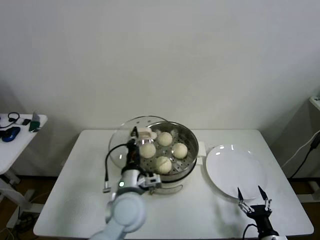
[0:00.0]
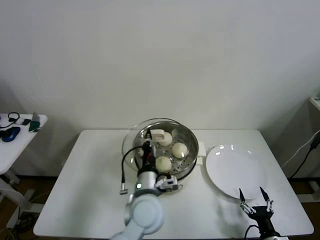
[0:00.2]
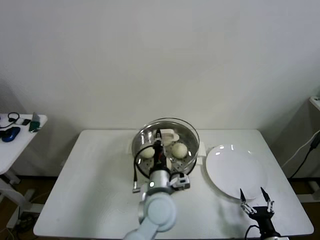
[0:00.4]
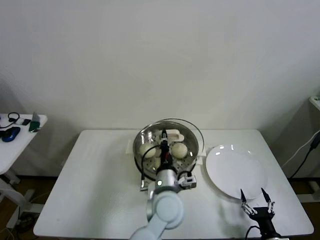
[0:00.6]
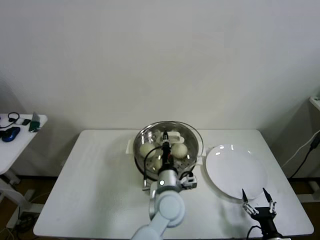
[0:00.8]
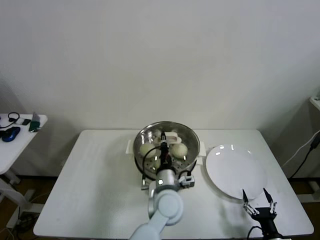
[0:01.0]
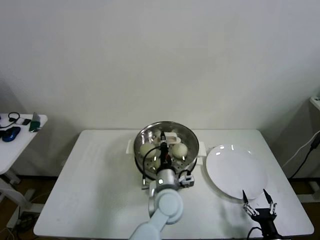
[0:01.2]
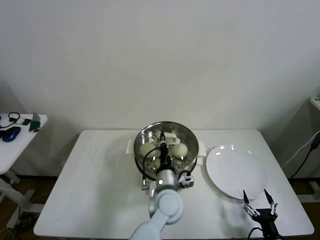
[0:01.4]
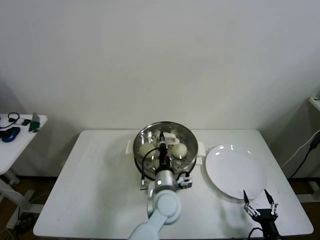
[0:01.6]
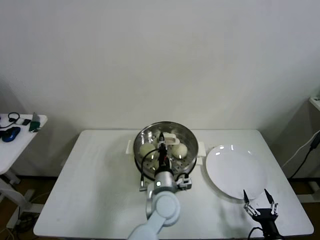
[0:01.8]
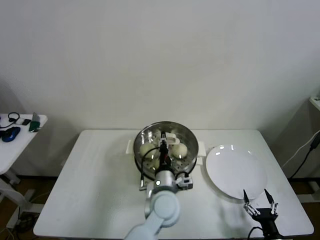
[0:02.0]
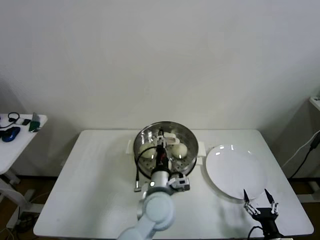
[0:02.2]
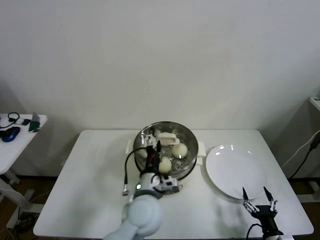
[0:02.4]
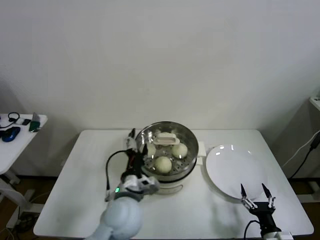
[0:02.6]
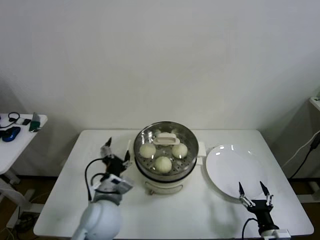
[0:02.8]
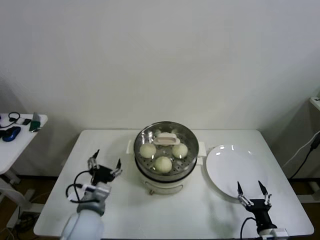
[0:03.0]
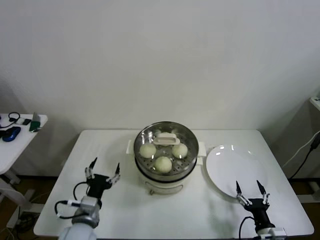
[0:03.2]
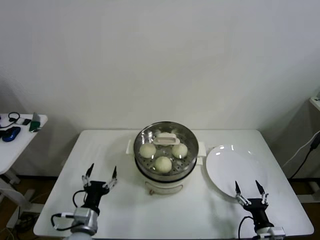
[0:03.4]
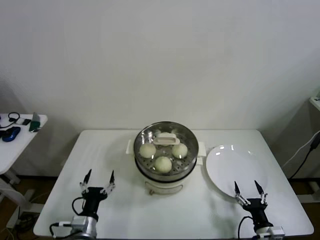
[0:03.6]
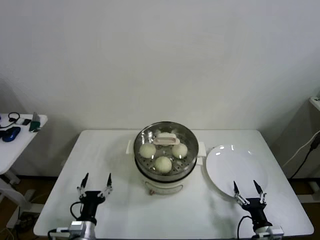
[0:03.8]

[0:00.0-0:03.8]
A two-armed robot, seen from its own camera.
Step, 0:00.0 to 0:01.8: Place the pot lid on the steamer with left gripper.
0:00.0 to 0:01.2: The left gripper heads to the right, covering about 10 cm.
0:01.2 to 0:02.6: The left gripper goes roughly 10 cm to the left, and opens up.
0:02.6 to 0:03.8: The left gripper heads to the left, downward and backward, covering some 25 cm.

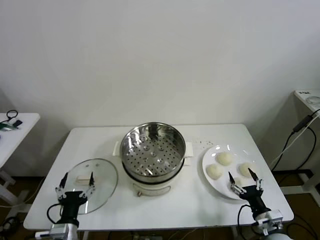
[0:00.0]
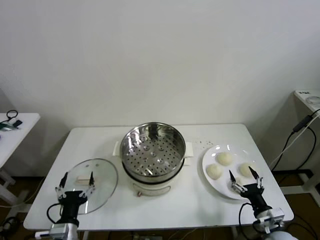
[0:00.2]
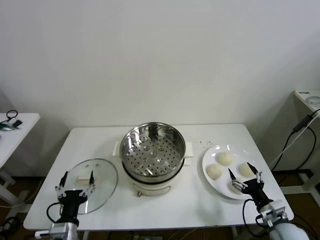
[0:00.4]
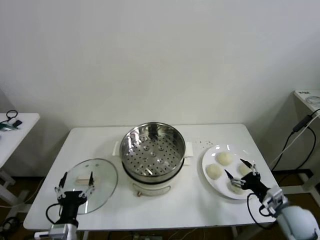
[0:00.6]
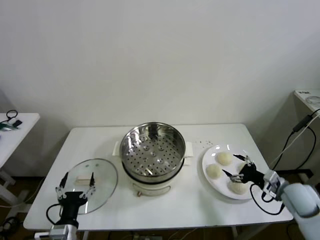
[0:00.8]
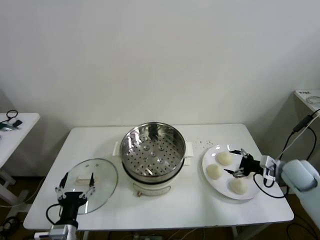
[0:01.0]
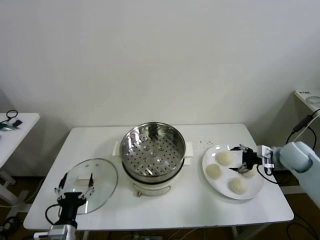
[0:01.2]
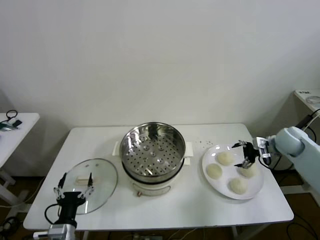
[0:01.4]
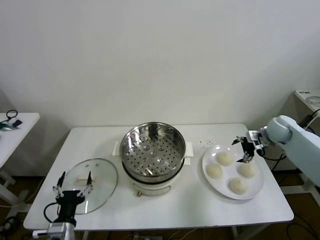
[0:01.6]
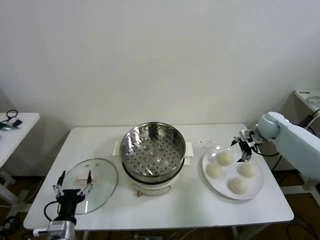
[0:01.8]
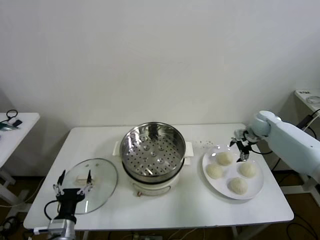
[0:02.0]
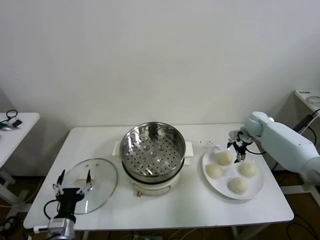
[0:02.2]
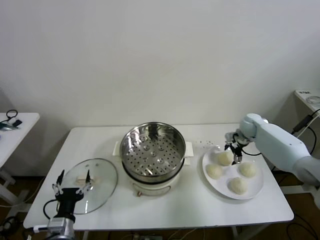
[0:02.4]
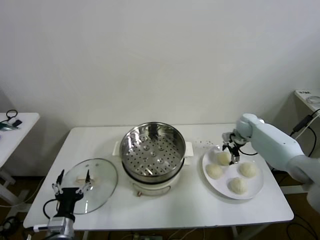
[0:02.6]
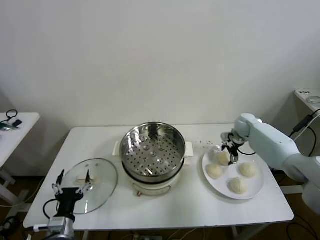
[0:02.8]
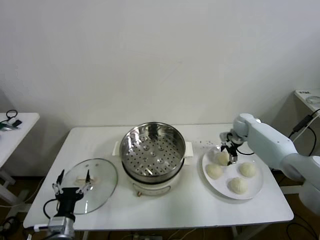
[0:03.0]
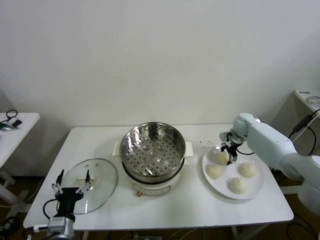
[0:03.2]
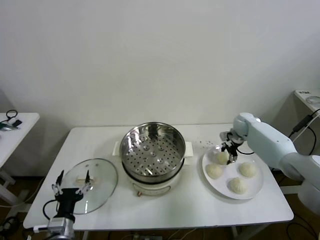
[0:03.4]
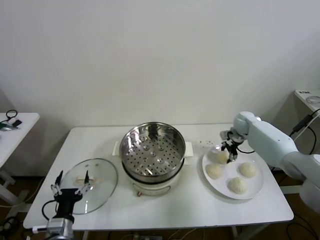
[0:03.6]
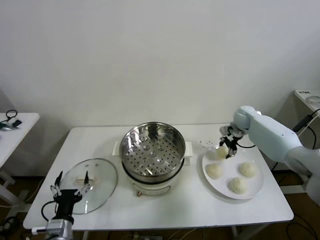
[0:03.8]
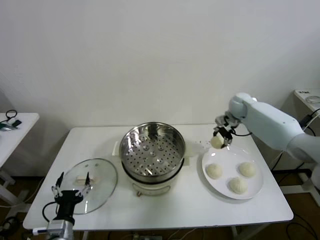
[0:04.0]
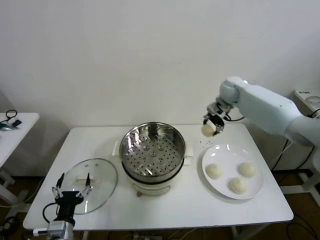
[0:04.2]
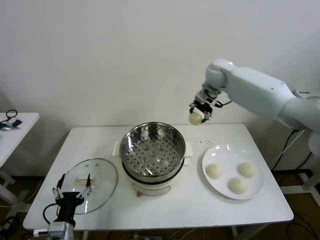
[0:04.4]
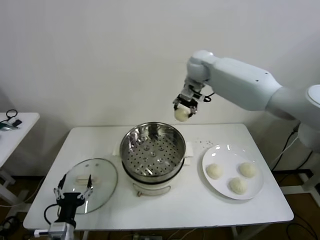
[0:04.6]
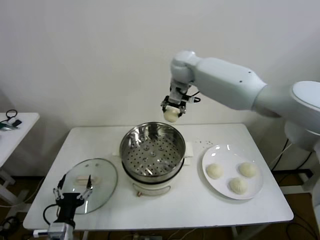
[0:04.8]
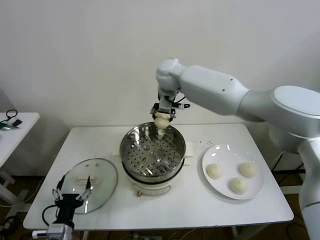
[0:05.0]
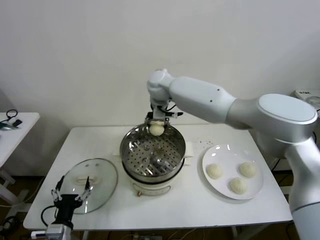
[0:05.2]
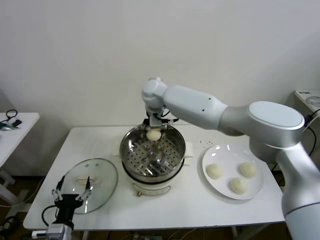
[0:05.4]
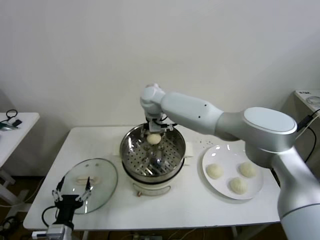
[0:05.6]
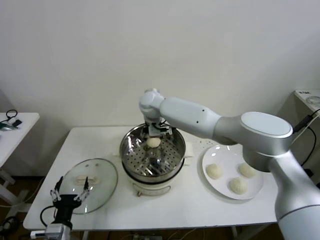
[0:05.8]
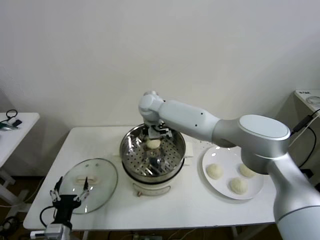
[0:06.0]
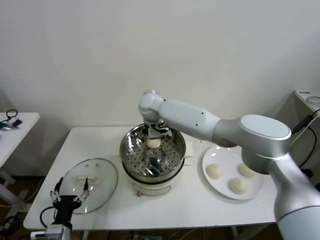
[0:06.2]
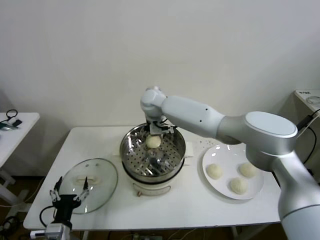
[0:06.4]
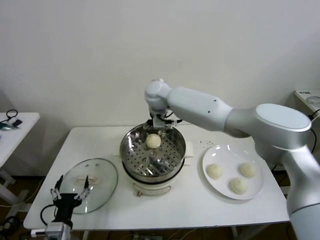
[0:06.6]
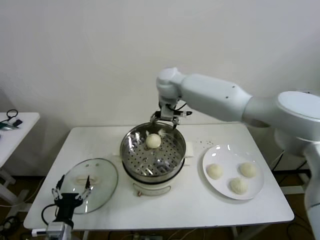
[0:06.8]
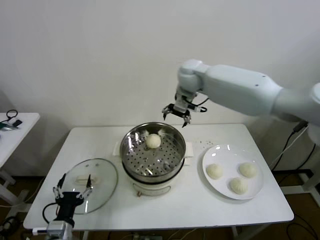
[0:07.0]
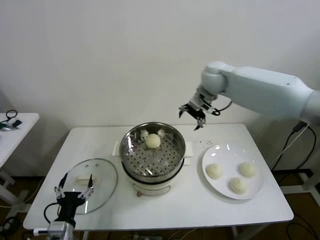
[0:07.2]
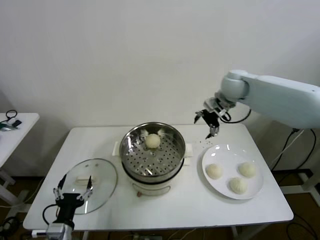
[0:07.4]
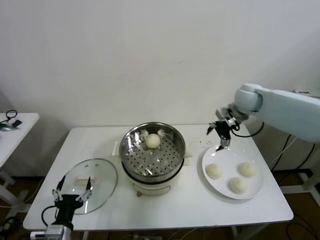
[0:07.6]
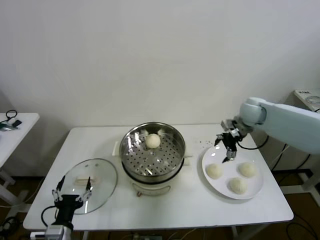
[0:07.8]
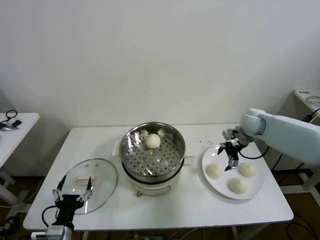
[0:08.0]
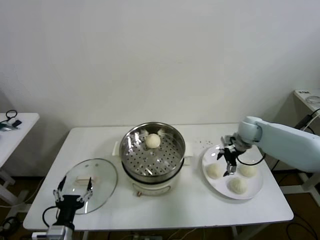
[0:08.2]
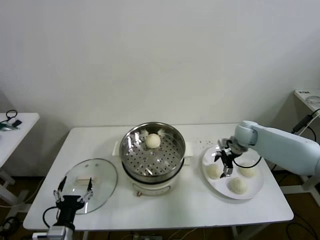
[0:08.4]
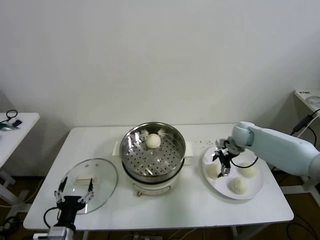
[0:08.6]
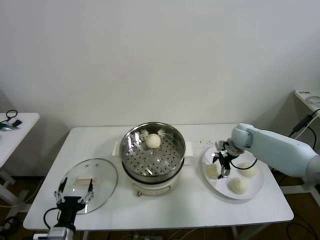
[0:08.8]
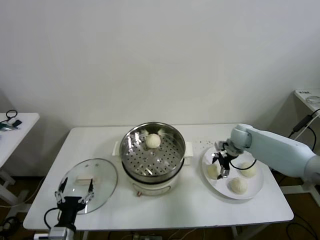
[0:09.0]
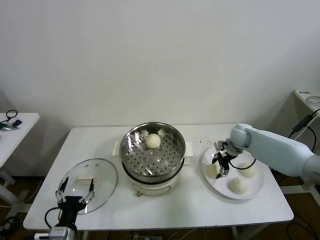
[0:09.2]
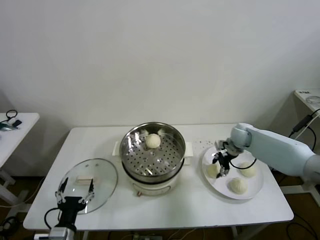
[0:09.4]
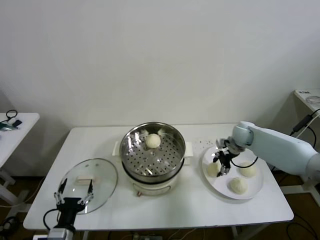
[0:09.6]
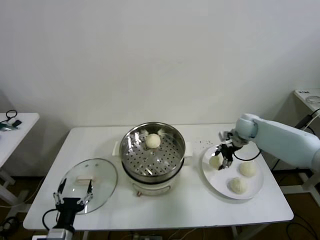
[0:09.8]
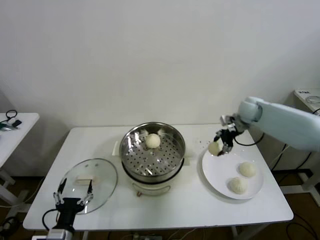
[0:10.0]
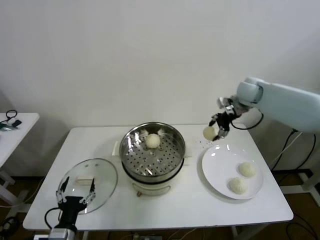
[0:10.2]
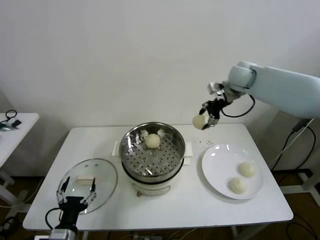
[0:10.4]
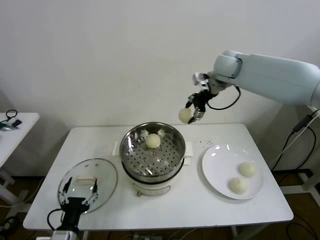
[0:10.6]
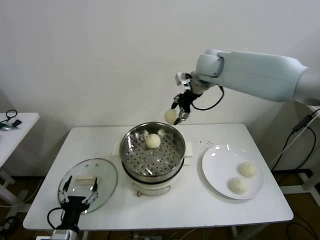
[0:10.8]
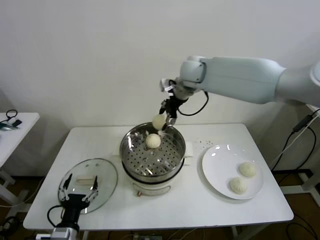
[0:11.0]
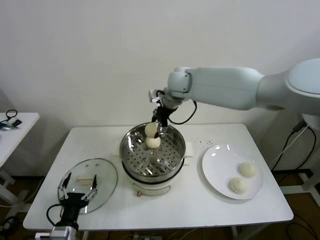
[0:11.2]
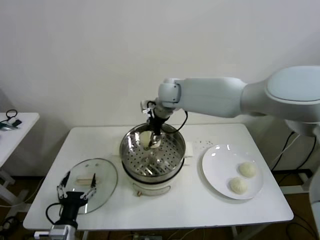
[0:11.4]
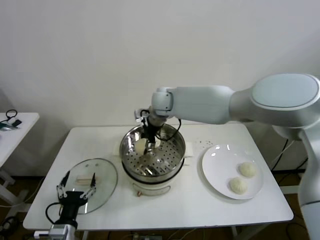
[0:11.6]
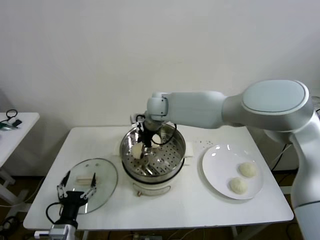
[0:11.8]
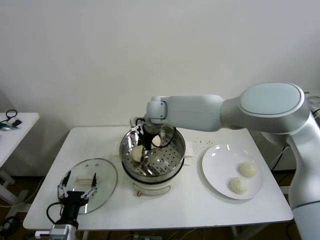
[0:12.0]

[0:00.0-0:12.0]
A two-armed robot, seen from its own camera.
Step, 0:00.0 to 0:03.4: Grasp the baozi in the plate with right gripper.
Step, 0:03.6 to 0:06.0: Place the baozi on the steamer with right gripper.
Step, 0:06.2 to 0:09.2: Grasp the baozi in the plate with right gripper.
0:01.6 to 0:03.0: The right gripper is displaced forward, to the left and downward by some 10 cm.
0:03.0 to 0:04.4: The right gripper moves upward and to the left, about 30 cm, and closes up.
0:04.4 to 0:06.0: The right gripper goes approximately 25 cm to the left and downward, and opens.
0:06.0 to 0:07.6: The right gripper travels to the right by roughly 35 cm.
0:07.6 to 0:09.0: The right gripper is displaced downward by roughly 15 cm.
0:09.0 to 0:10.4: The right gripper is displaced upward by roughly 25 cm, and closes up.
0:10.4 to 0:12.0: The right gripper travels to the left and downward by roughly 30 cm.

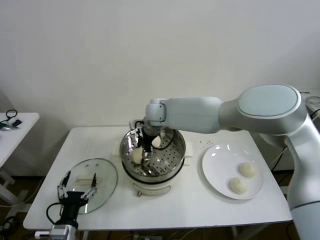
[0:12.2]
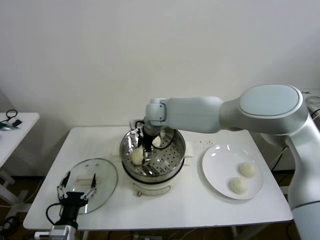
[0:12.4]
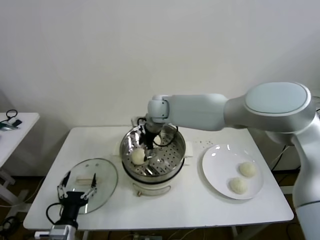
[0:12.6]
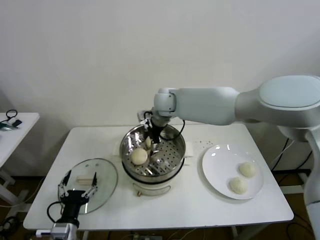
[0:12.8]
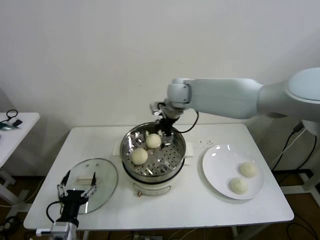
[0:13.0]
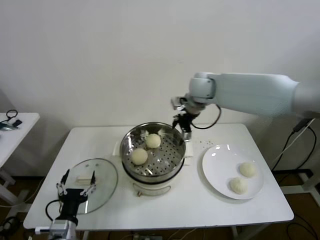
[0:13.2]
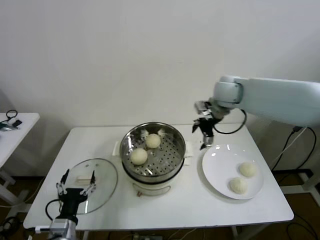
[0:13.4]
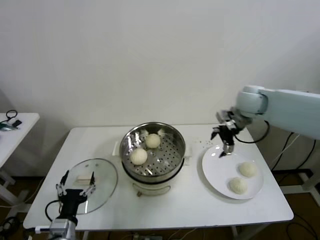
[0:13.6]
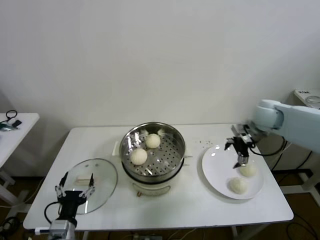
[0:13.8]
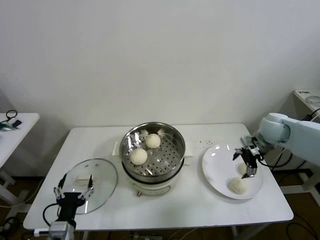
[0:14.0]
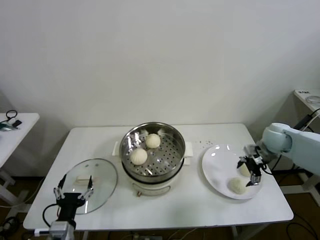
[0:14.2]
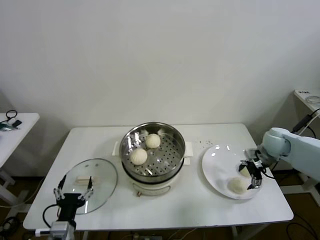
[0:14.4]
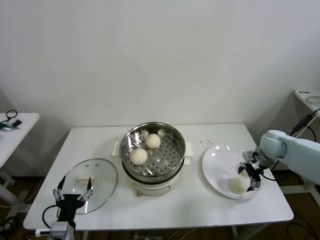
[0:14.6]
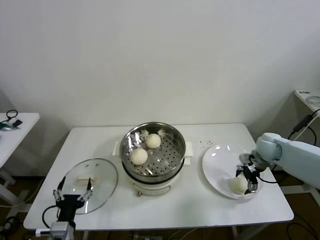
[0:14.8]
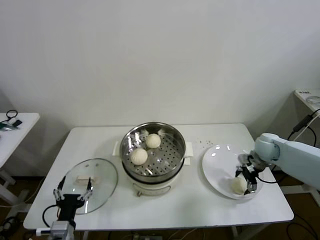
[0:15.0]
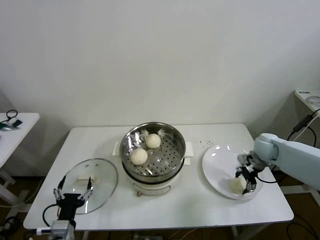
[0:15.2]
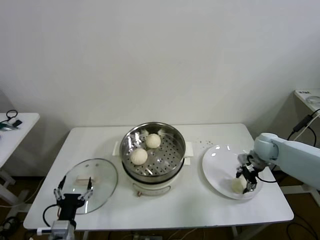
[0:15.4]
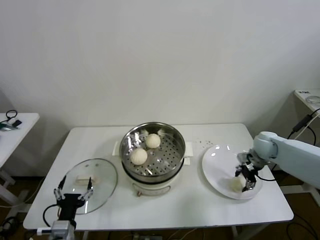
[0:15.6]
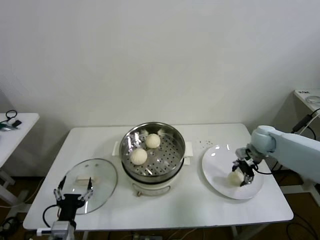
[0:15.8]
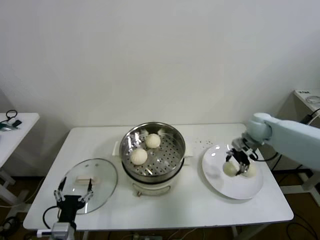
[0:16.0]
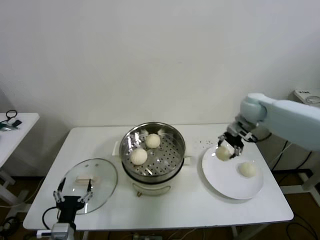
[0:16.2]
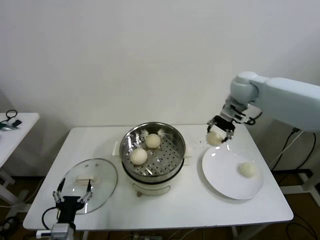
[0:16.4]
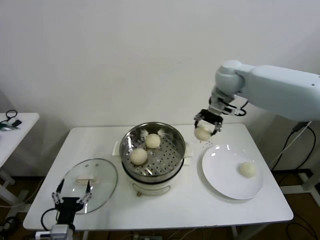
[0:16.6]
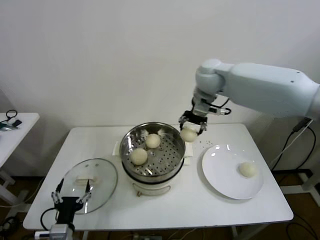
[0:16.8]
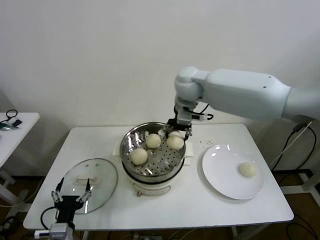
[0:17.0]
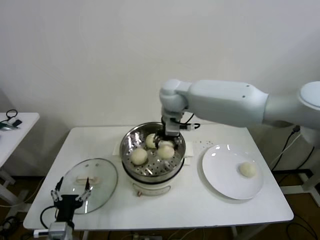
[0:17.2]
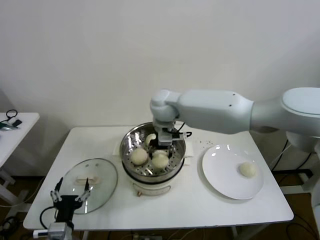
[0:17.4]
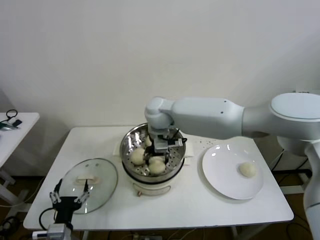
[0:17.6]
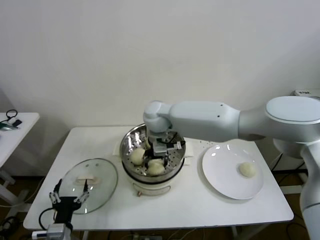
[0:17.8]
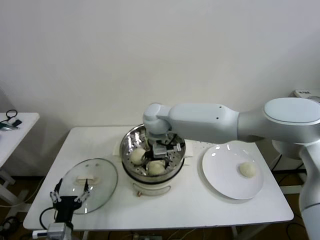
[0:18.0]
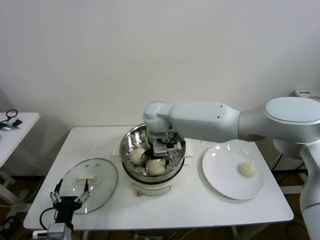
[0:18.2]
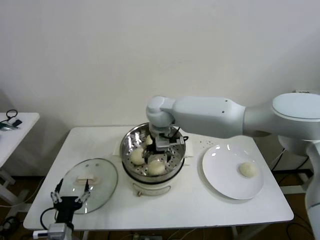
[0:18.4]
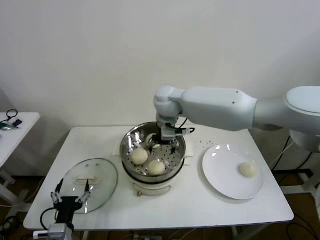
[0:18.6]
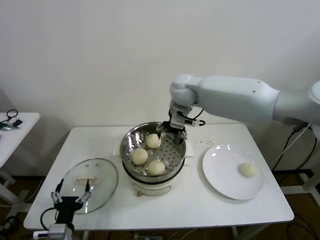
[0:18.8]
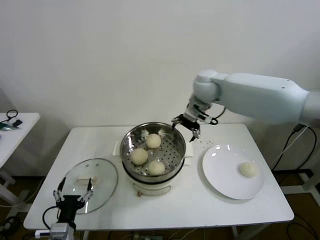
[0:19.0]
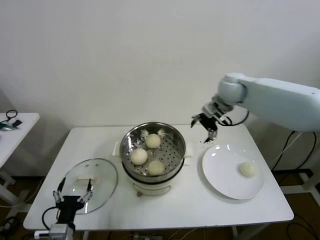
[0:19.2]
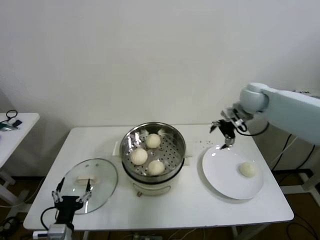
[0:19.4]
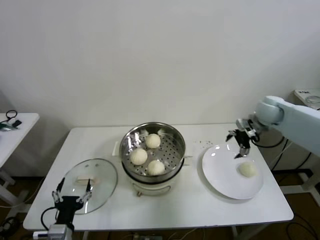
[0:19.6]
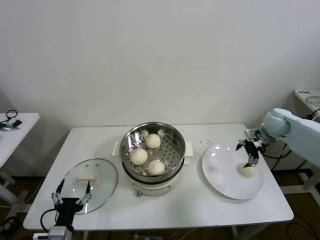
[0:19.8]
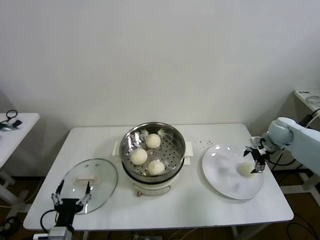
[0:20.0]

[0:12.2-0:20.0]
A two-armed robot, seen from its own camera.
Step, 0:12.4 to 0:15.2: Grasp the baozi in the plate with right gripper.
Step, 0:15.4 to 0:18.0: Place the baozi on the steamer with right gripper.
0:12.2 to 0:13.8: The right gripper heads to the right, covering roughly 35 cm.
0:13.8 to 0:15.4: The right gripper shifts roughly 15 cm downward, and closes its fingers.
0:15.4 to 0:16.8: The right gripper moves to the left and upward, some 35 cm.
0:16.8 to 0:18.4: The right gripper shifts roughly 15 cm to the left and downward, and opens.
0:18.4 to 0:20.0: The right gripper travels to the right by roughly 40 cm.
